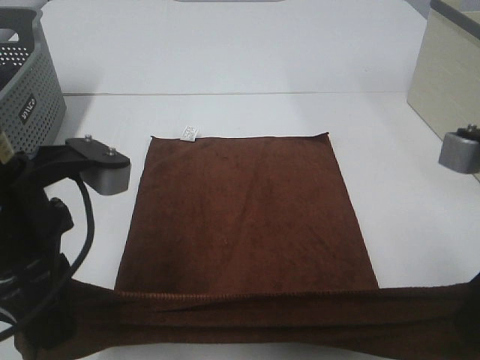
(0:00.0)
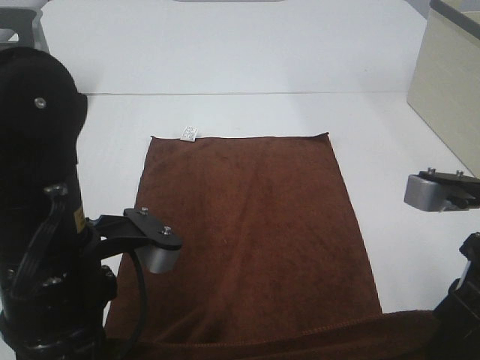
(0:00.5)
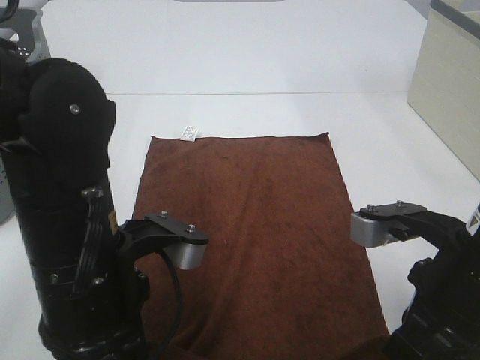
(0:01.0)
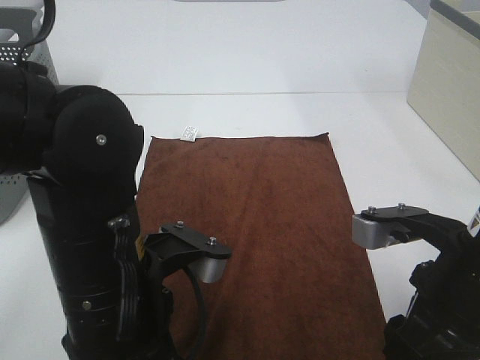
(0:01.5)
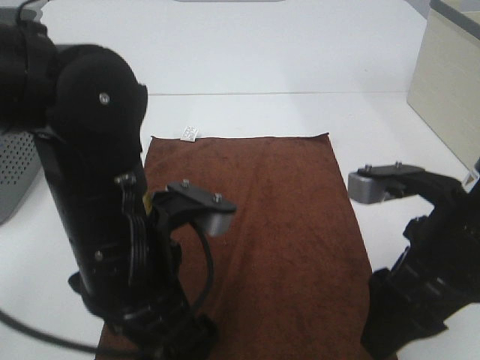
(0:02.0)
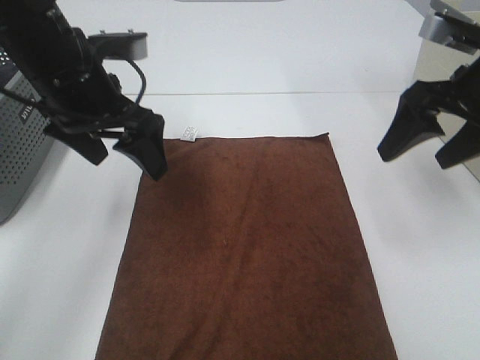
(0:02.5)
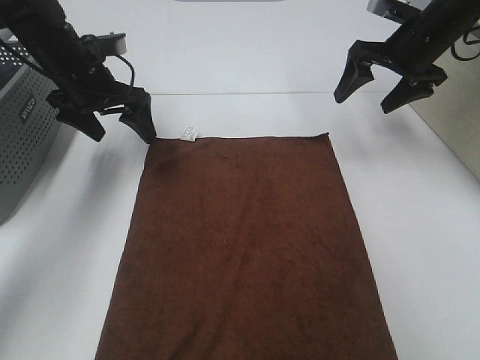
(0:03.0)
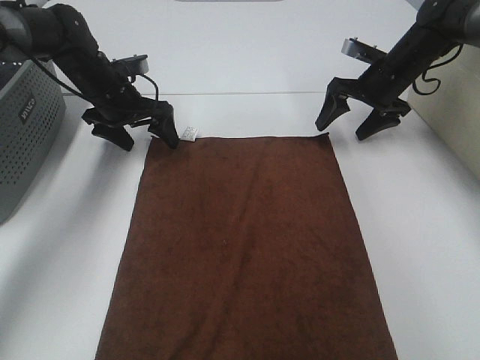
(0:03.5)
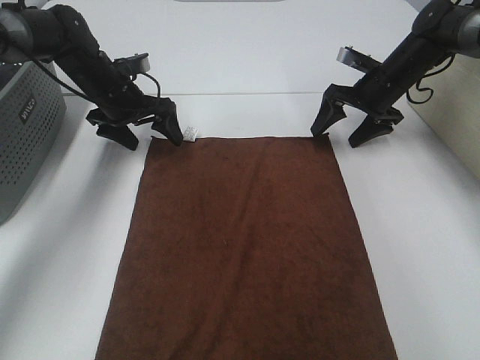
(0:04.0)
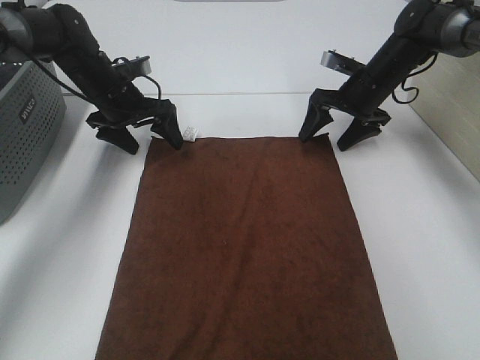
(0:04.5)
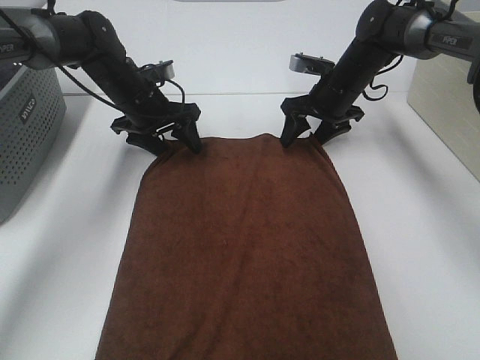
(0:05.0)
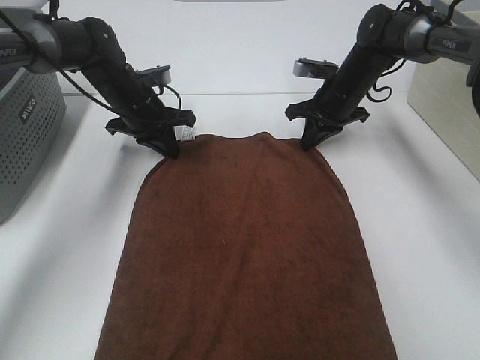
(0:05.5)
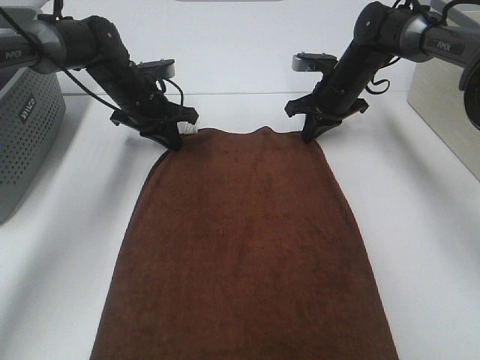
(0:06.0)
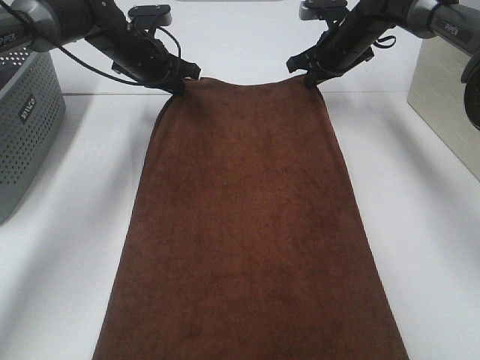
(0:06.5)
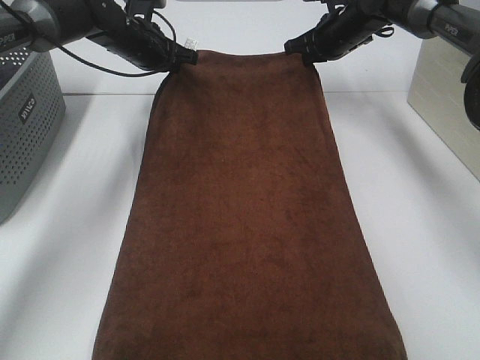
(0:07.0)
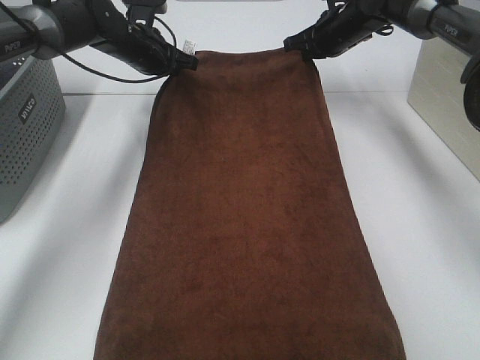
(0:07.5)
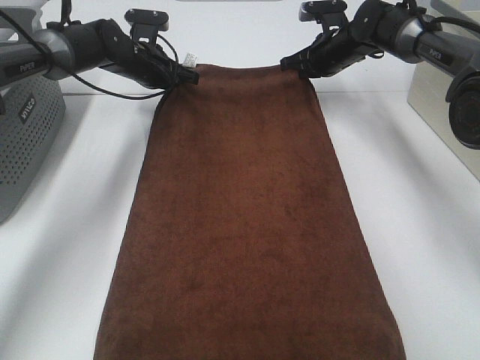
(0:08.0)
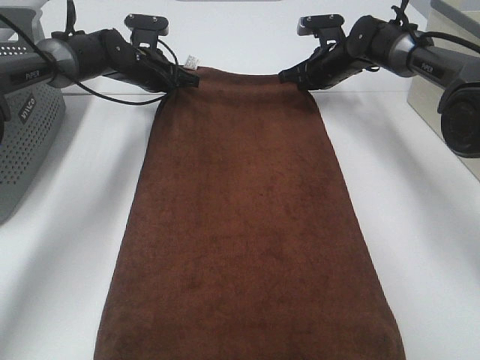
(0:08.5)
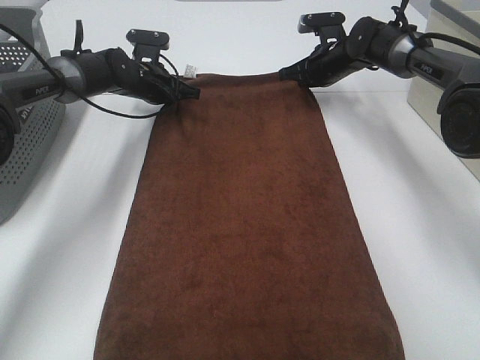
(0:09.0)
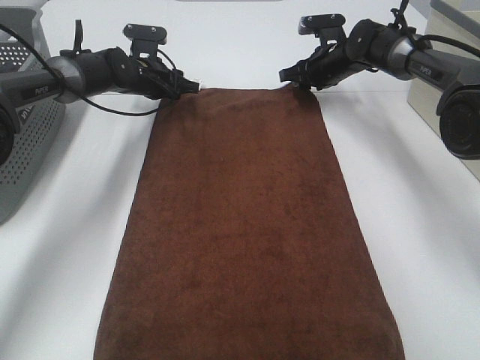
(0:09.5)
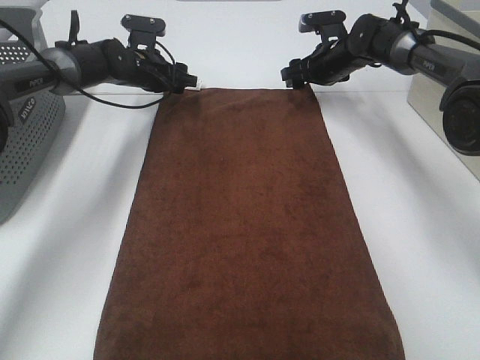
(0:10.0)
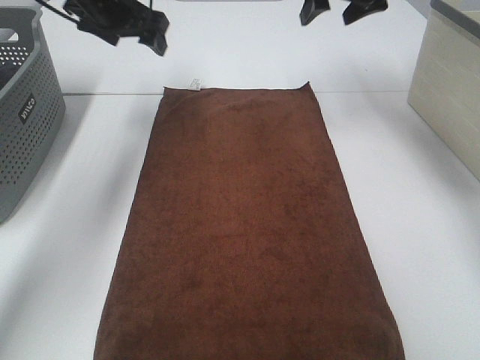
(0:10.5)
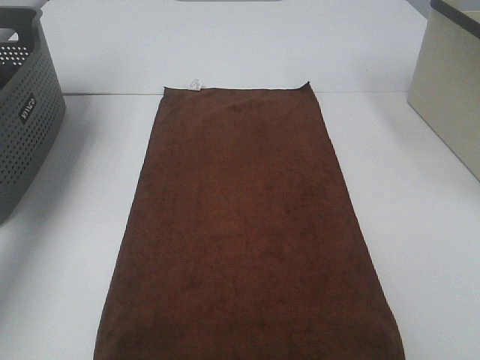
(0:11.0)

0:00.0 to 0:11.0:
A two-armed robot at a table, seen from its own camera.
Task of the whole recording: Remove the towel and place it.
Step, 0:00.0 to 0:03.5: Left hand:adjust the brown towel.
Step, 0:00.0 to 0:03.5: Right hand:adjust the brown towel.
0:00.0 to 0:02.0: The right gripper moves some 5 cm, and opens its fingers; the left gripper shifts roughly 5 cm to the right, and opens.
0:02.0 to 0:03.5: Both grippers travel together forward, some 35 cm.
0:03.5 to 0:05.5: The right gripper shifts roughly 5 cm to the left, and closes; the left gripper closes.
0:05.5 to 0:07.5: The right gripper shifts roughly 10 cm upward and forward. The left gripper heads forward and upward, covering some 10 cm.
0:07.5 to 0:09.0: The two grippers go approximately 5 cm downward.
0:09.0 to 0:11.0: The right gripper shifts about 30 cm upward and backward, and opens up, while the left gripper heads upward and to the left, covering roughly 35 cm, and opens its fingers.

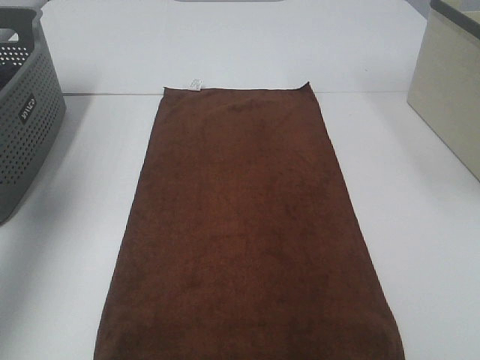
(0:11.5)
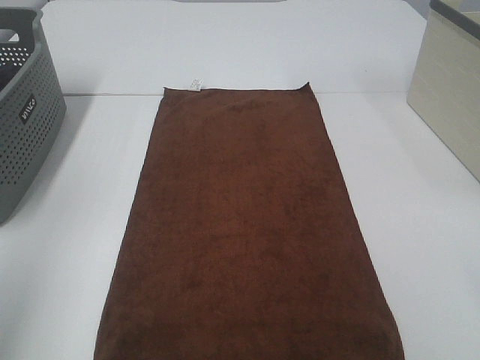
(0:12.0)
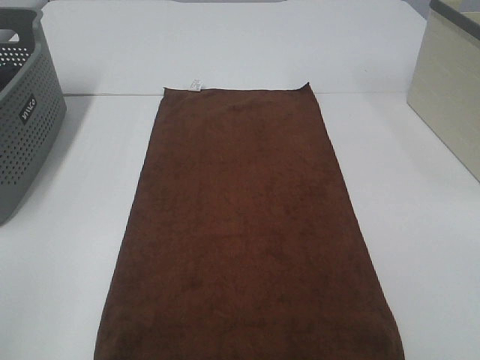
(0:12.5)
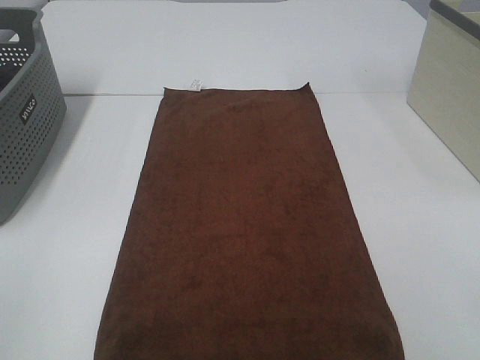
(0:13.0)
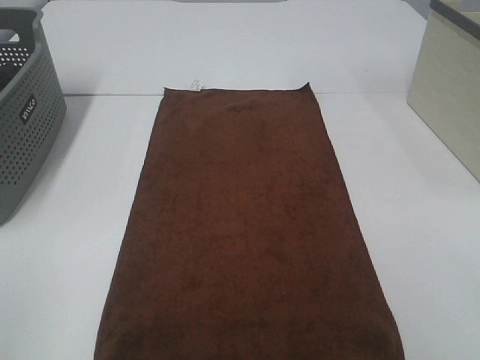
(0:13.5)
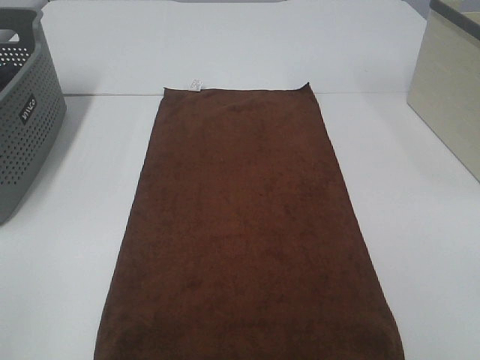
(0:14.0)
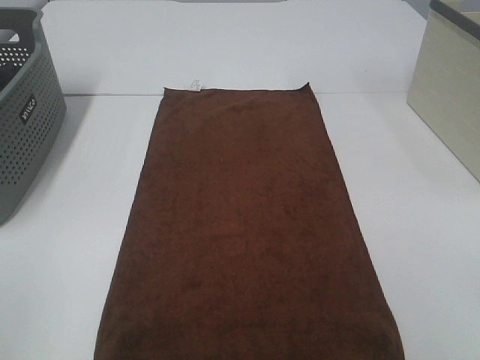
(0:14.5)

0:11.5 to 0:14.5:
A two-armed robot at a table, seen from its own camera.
Task of the whole recording: Remove the towel and place it.
0:11.5 to 0:13.0: The left gripper is displaced backward by approximately 30 cm.

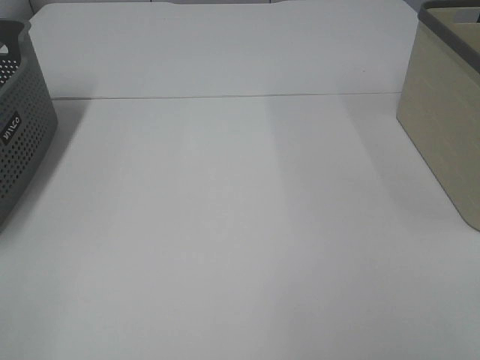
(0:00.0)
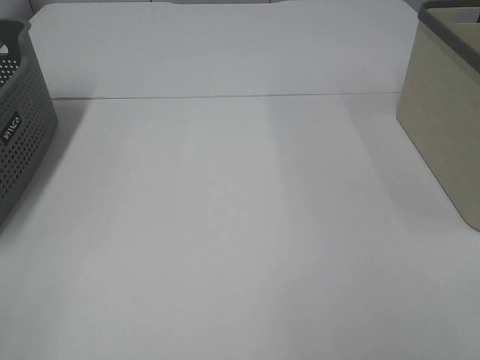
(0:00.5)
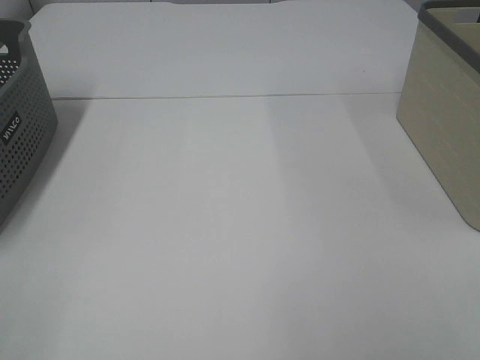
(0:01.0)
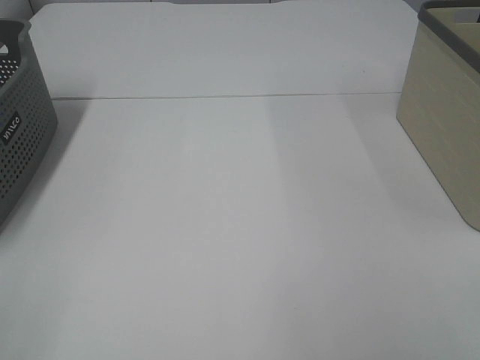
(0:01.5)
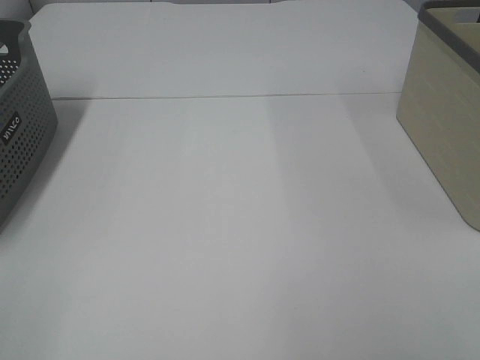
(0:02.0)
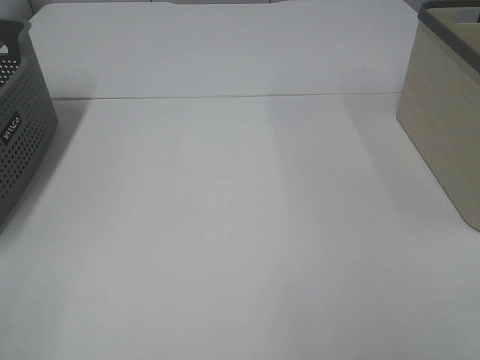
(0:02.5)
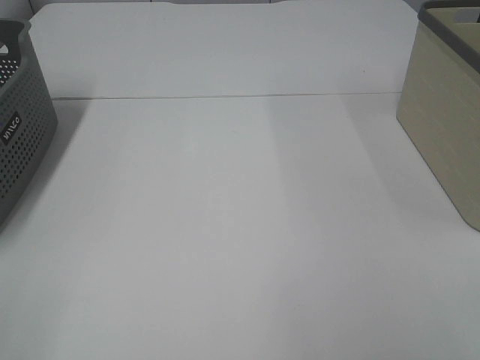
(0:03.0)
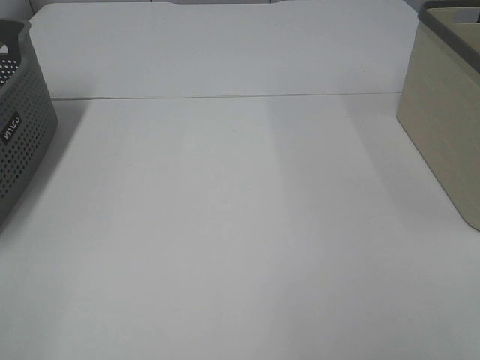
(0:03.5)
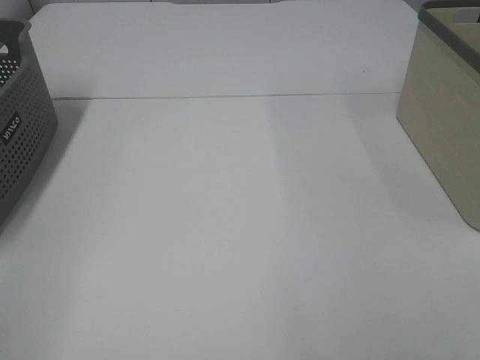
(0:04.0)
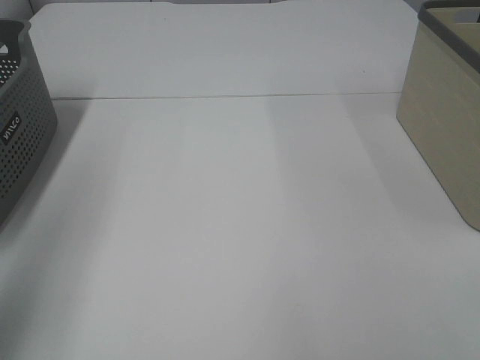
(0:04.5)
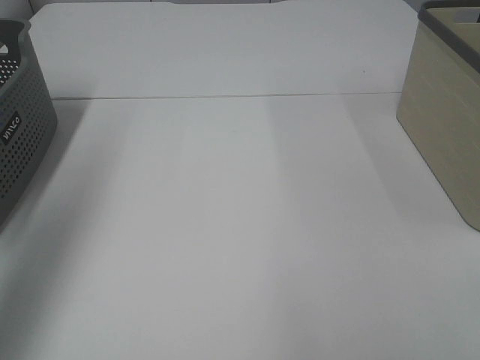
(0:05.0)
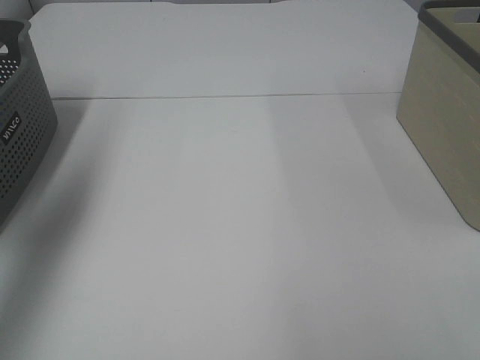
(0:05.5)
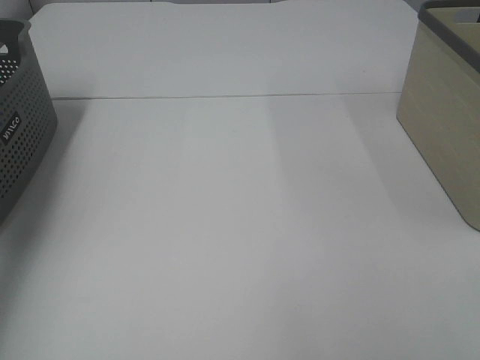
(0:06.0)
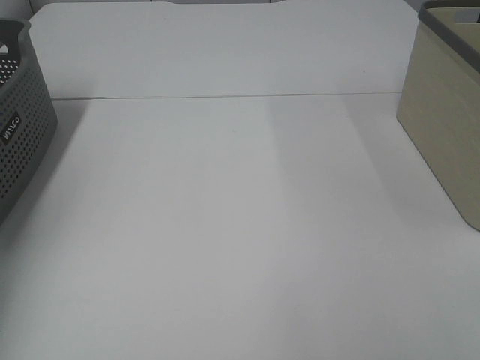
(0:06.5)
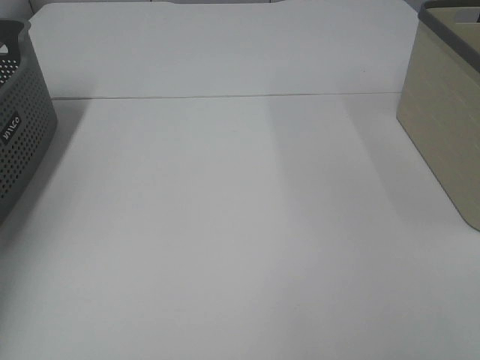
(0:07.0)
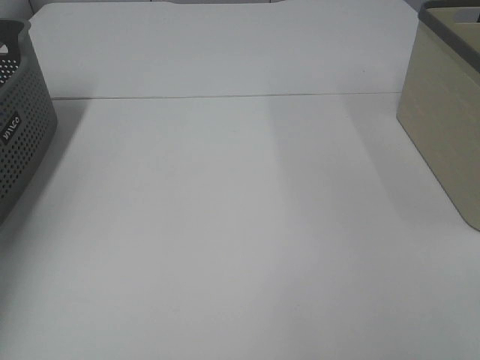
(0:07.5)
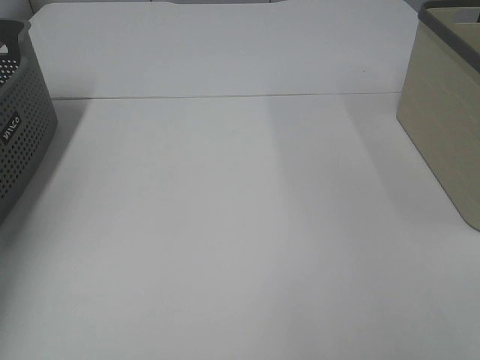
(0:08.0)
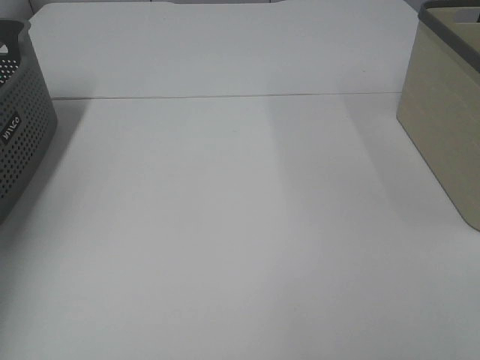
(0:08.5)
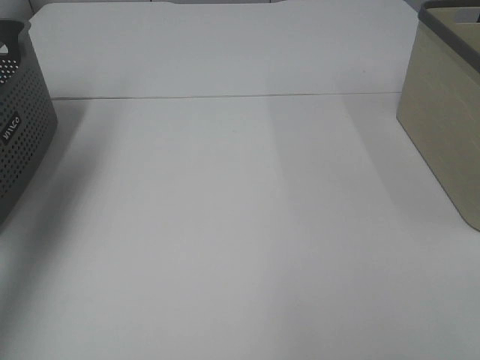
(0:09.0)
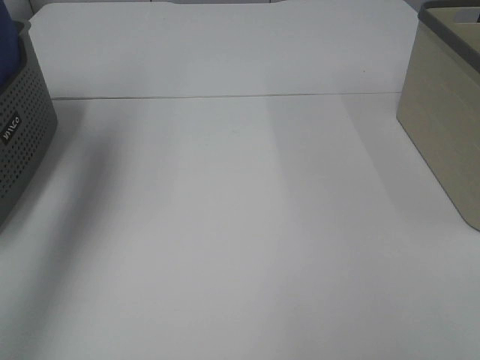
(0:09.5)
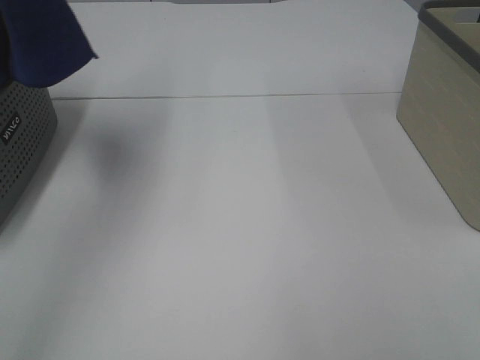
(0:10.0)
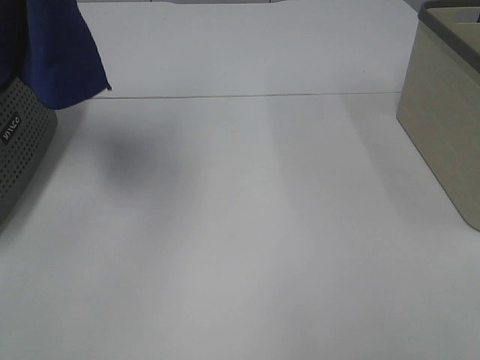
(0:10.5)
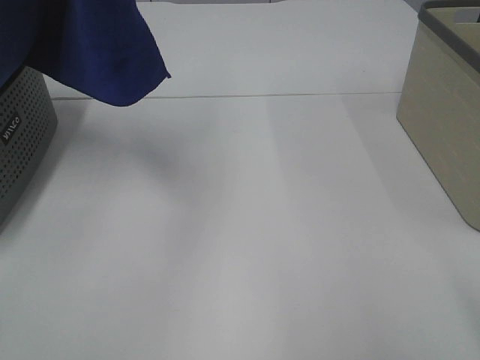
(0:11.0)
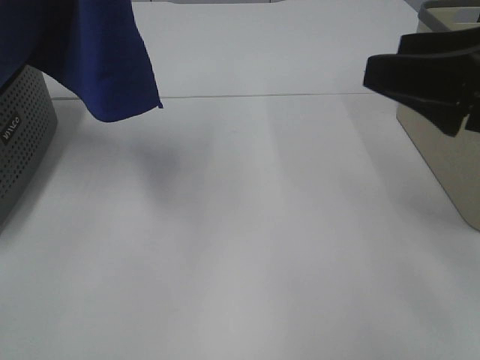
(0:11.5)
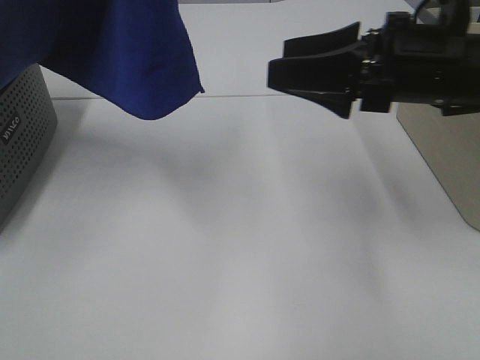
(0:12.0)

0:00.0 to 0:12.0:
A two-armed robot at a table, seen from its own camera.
Task of the whole recording: Remove the towel and place it.
0:00.0 to 0:02.0: Neither gripper changes place.
0:04.0 to 0:06.0: The left gripper heads forward, covering about 35 cm.
0:06.0 to 0:08.0: The left gripper moves downward and forward, approximately 15 cm, and closes up.
0:08.0 to 0:10.0: The left gripper moves upward and to the right, approximately 35 cm.
0:10.0 to 0:12.0: The left gripper goes some 10 cm to the right. Meanwhile the right gripper moves forward, roughly 30 cm.
